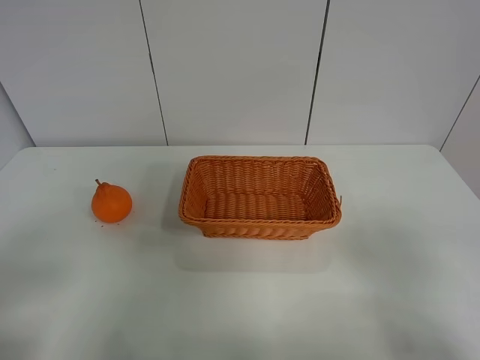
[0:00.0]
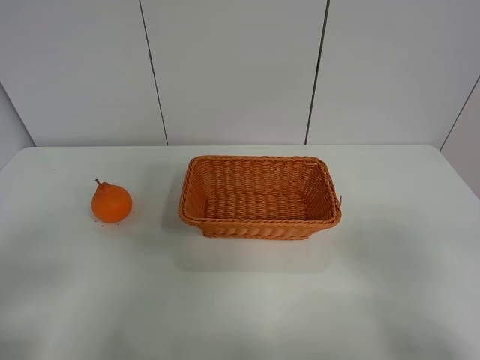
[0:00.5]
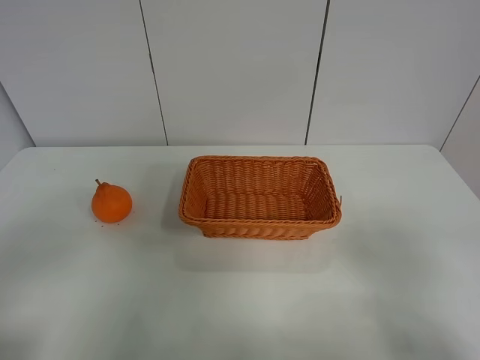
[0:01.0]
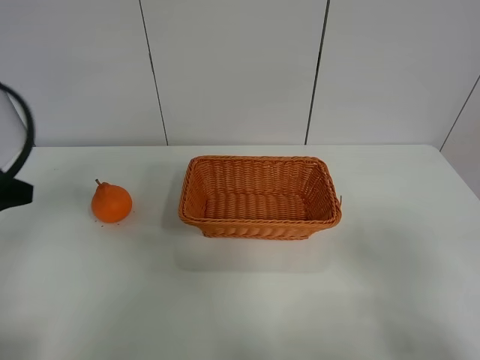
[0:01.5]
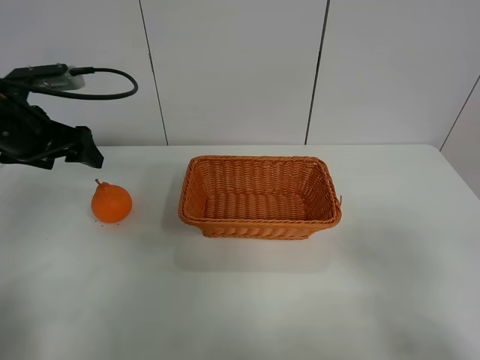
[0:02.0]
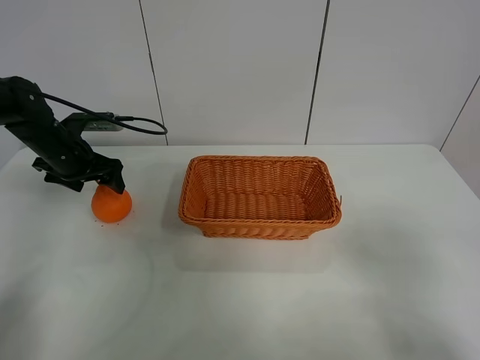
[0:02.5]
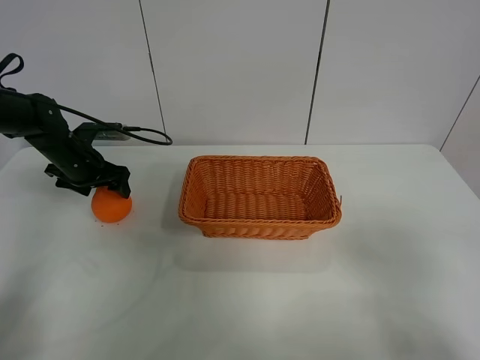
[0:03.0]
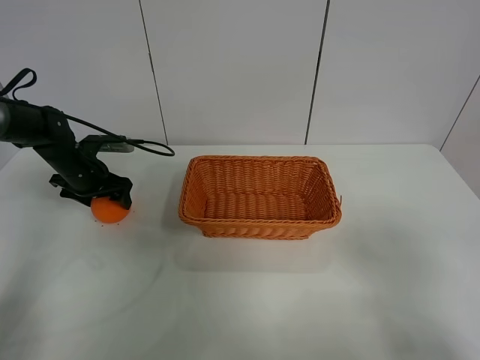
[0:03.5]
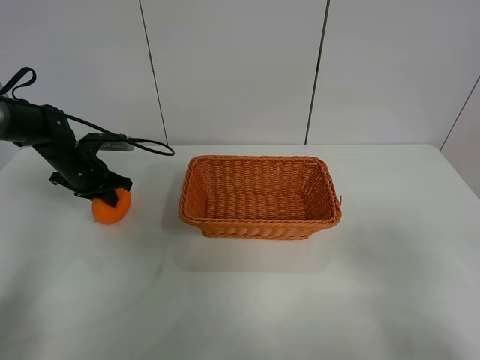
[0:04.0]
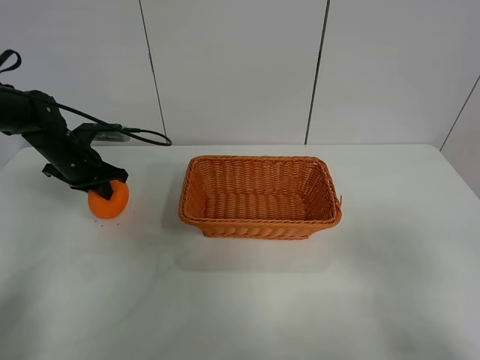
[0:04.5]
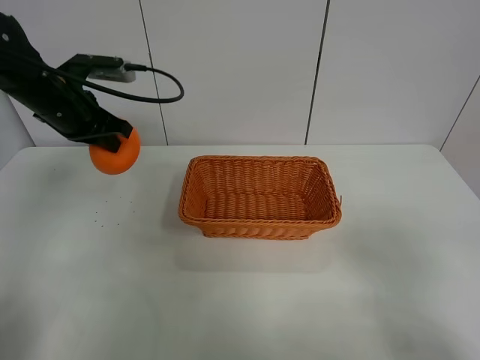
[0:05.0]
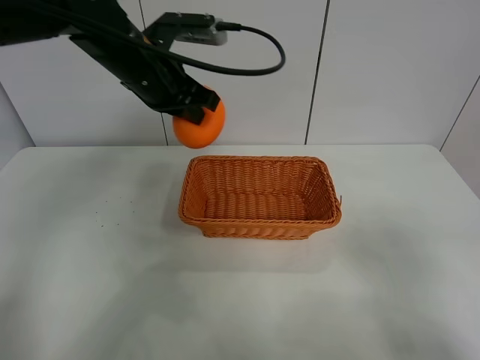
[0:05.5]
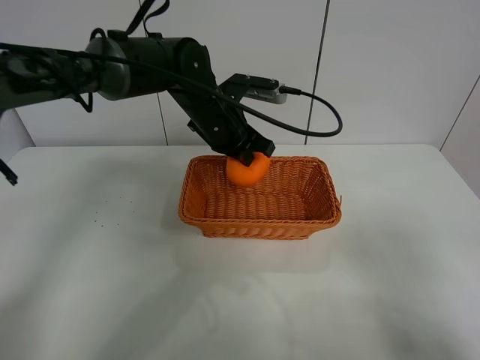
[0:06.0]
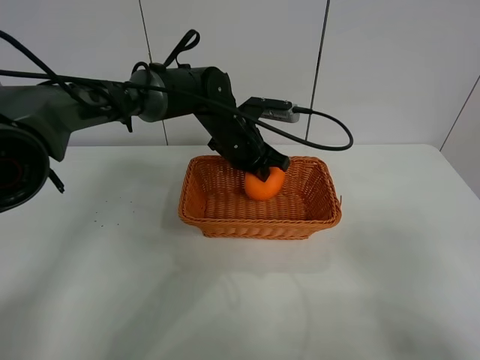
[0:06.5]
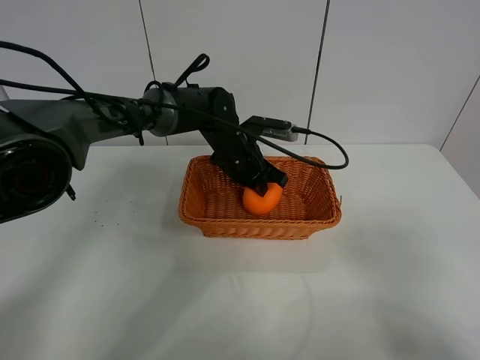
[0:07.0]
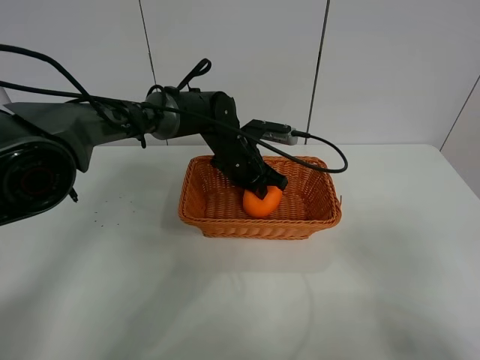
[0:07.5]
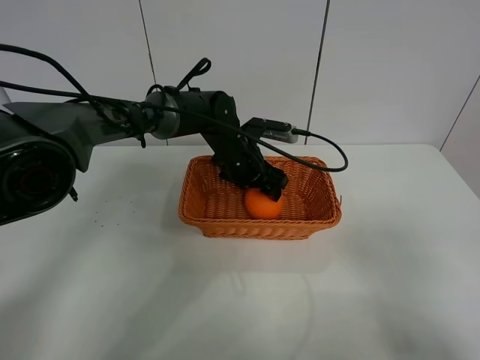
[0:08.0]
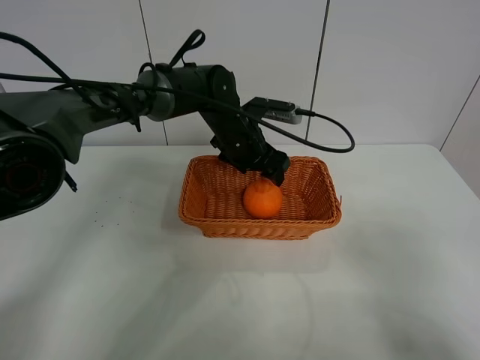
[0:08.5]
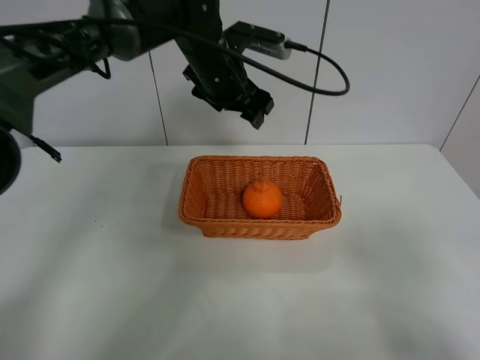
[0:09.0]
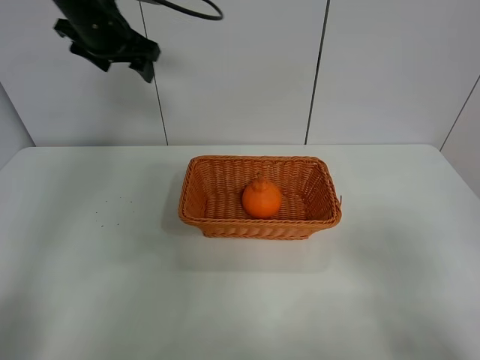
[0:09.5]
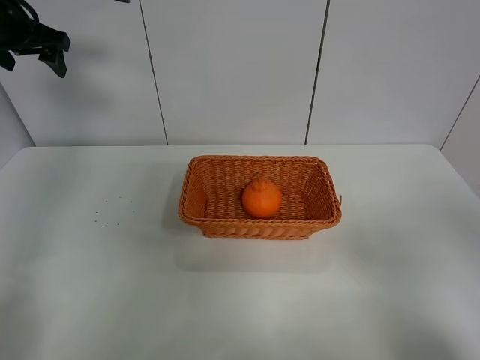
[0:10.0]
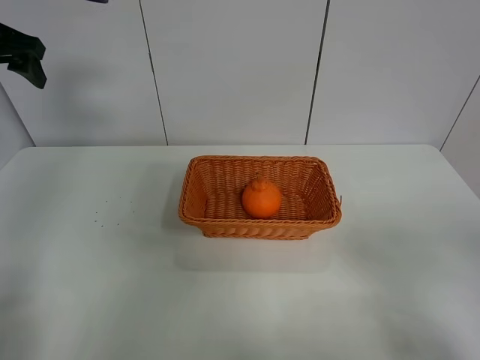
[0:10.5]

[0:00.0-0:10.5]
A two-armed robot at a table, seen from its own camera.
Task of the whole recording: left gripper grabs oranges and puts them in the basket.
Step, 0:00.0 to 0:04.0: Grasp the orange with left gripper.
Step, 0:04.5 to 0:09.0: Place the orange in the basket with left gripper.
0:00.0 to 0:02.0: The left gripper goes roughly 30 cm forward.
0:02.0 to 0:04.0: The left gripper goes approximately 15 cm downward and forward, and closes up.
0:04.0 to 0:06.5: The left gripper moves to the right, some 30 cm.
0:06.5 to 0:08.5: The left gripper opens up.
0:08.5 to 0:10.5: The left gripper heads to the left and upward, covering roughly 40 cm.

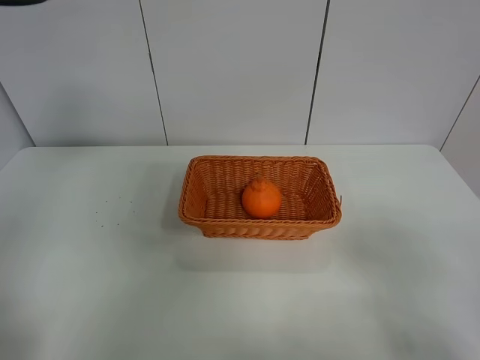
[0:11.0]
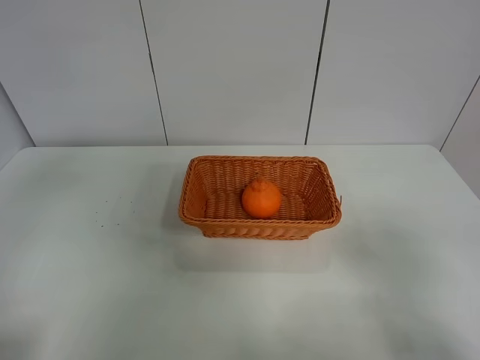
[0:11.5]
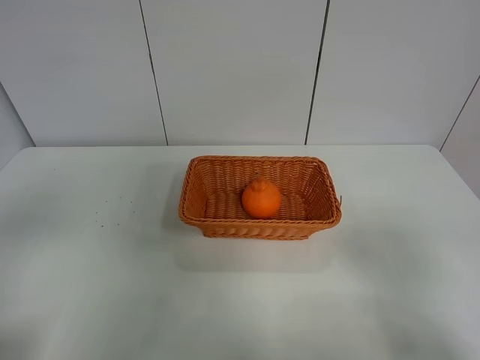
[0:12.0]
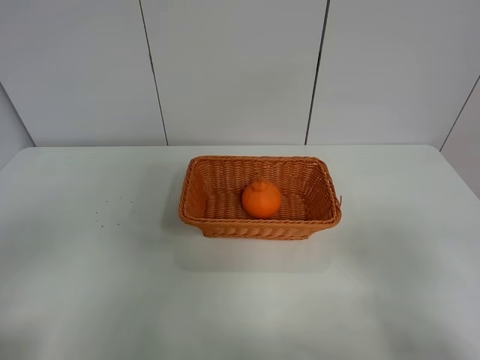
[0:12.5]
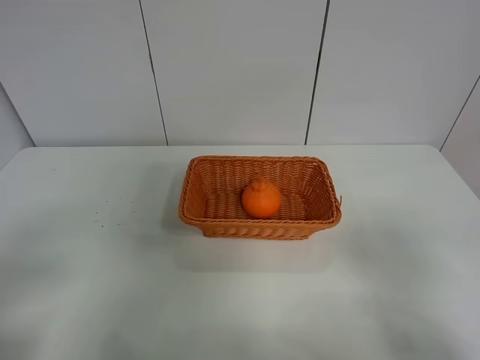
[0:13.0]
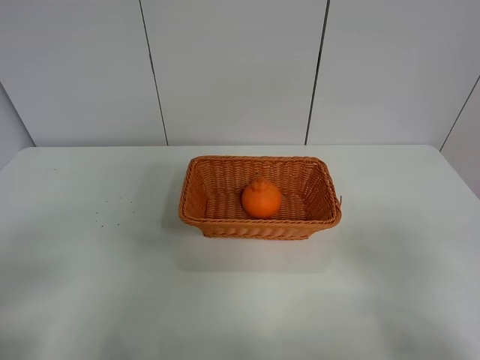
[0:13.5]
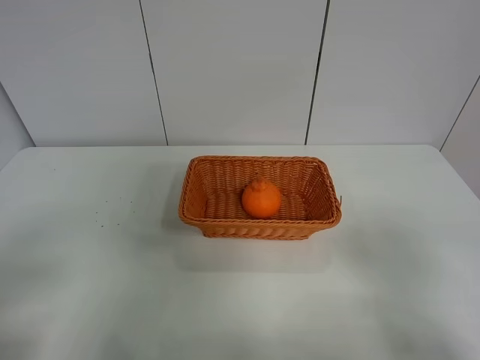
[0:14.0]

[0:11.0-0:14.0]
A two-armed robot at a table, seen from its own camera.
Task of the whole recording: left gripper grabs oranges and puts them in the basket.
0:11.0 to 0:12.5: The left gripper shifts about 25 cm backward.
